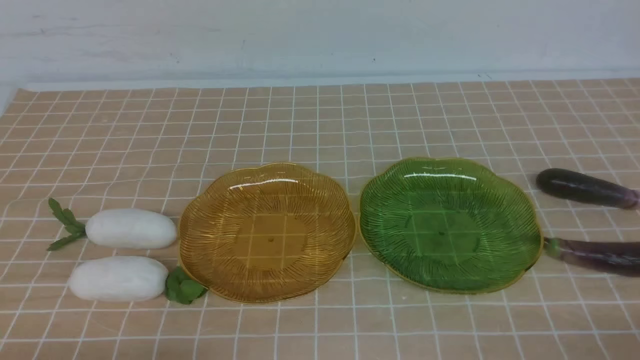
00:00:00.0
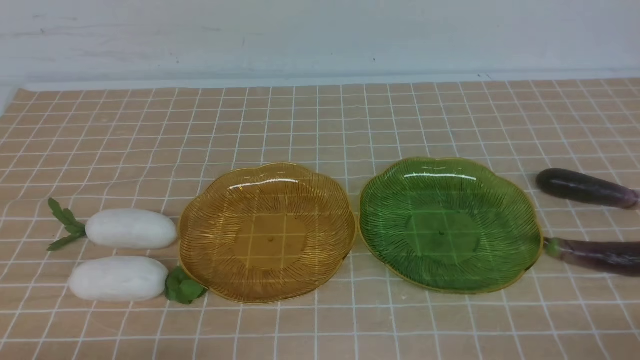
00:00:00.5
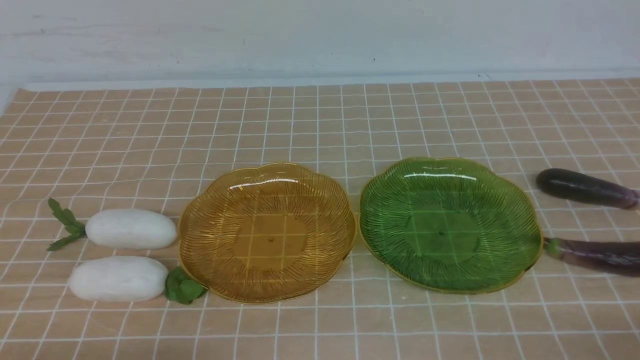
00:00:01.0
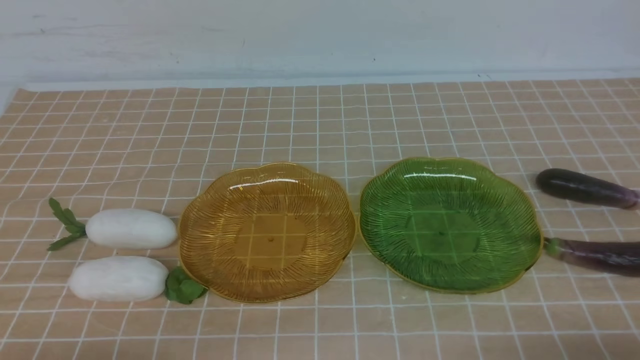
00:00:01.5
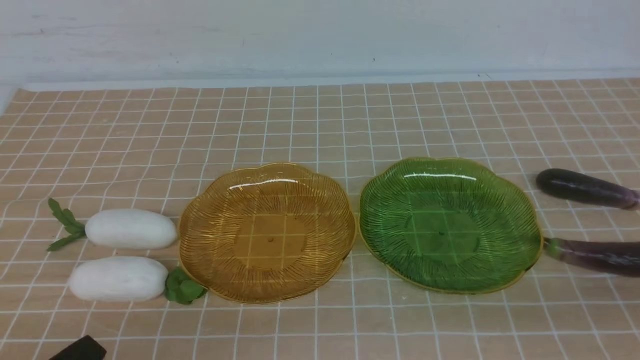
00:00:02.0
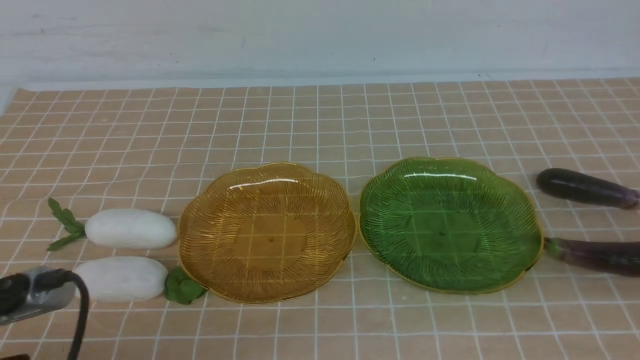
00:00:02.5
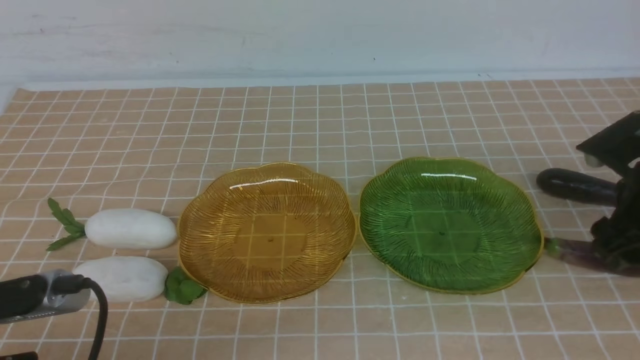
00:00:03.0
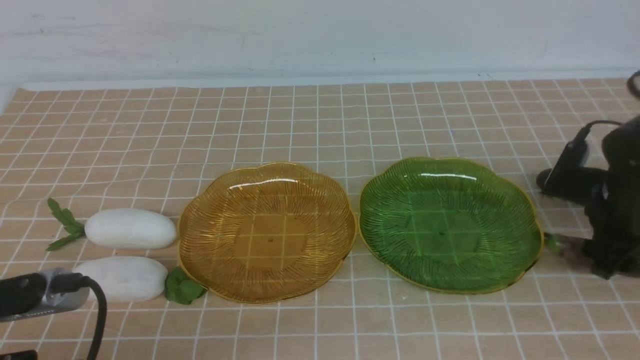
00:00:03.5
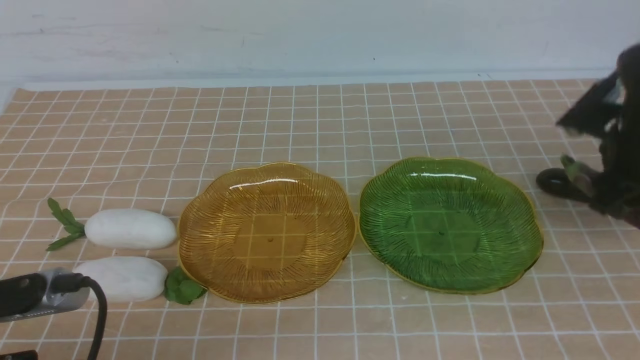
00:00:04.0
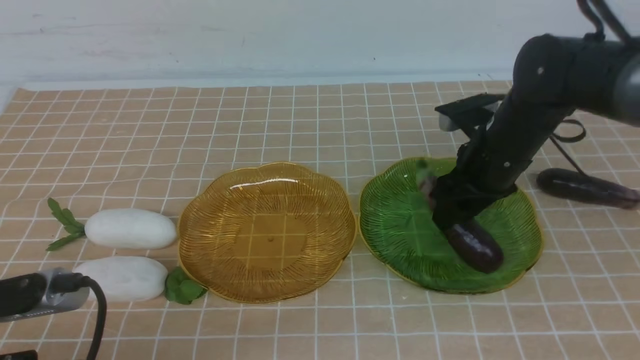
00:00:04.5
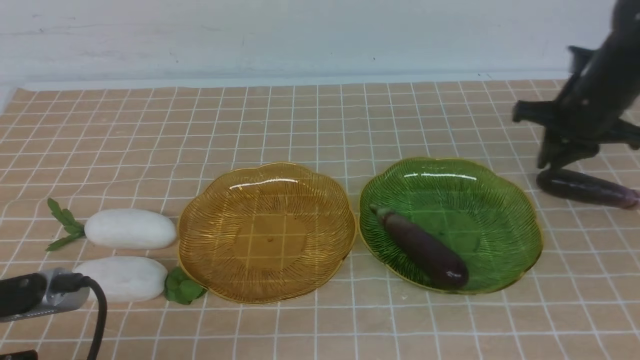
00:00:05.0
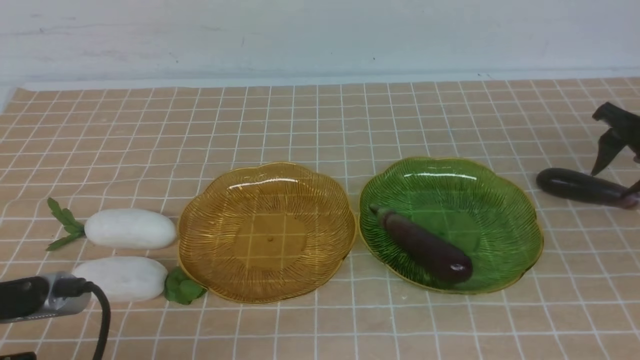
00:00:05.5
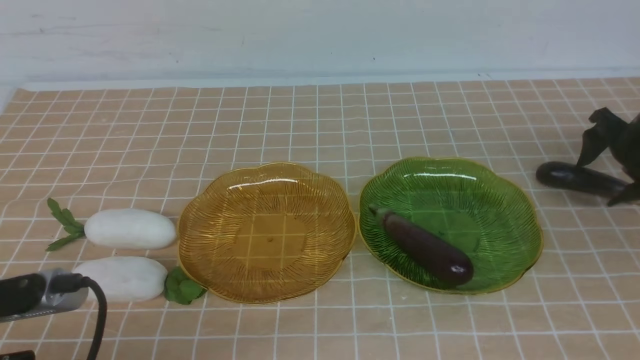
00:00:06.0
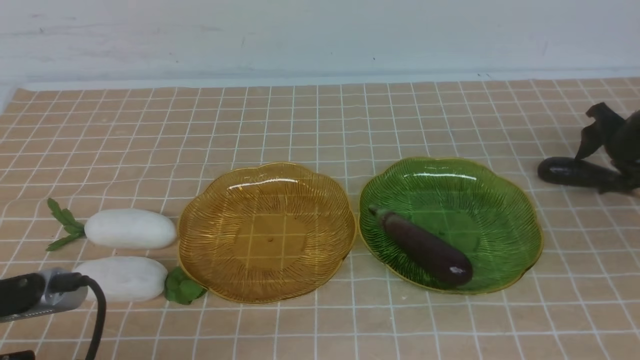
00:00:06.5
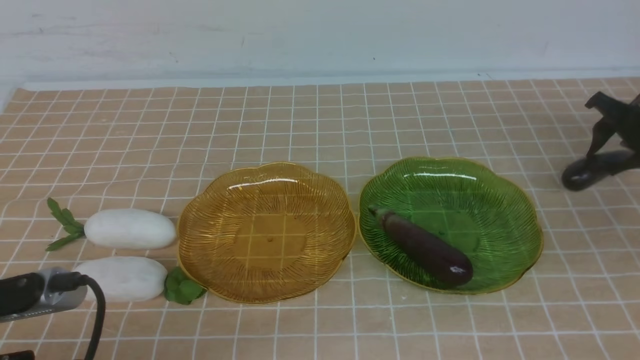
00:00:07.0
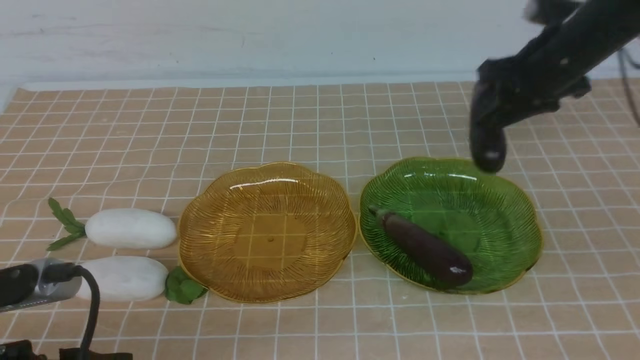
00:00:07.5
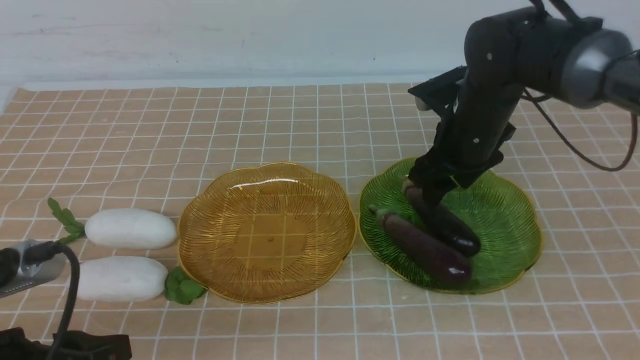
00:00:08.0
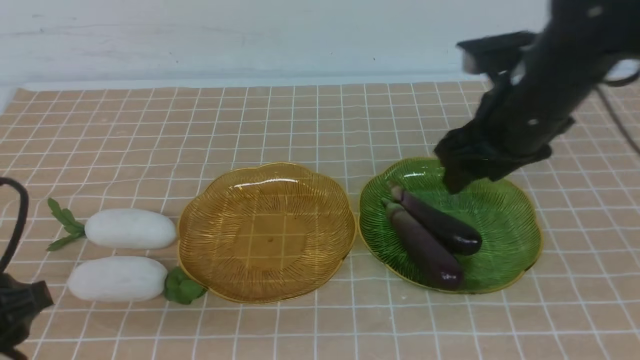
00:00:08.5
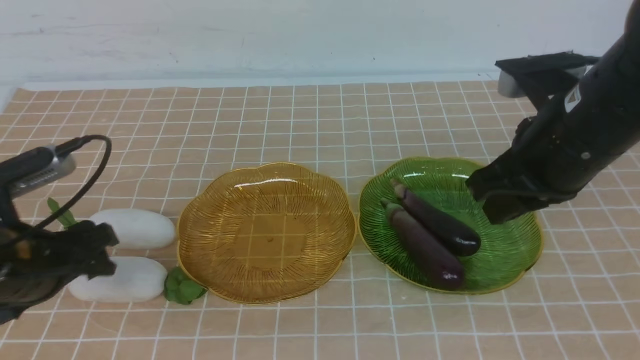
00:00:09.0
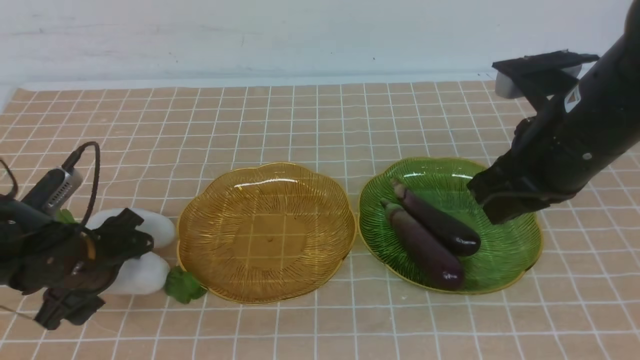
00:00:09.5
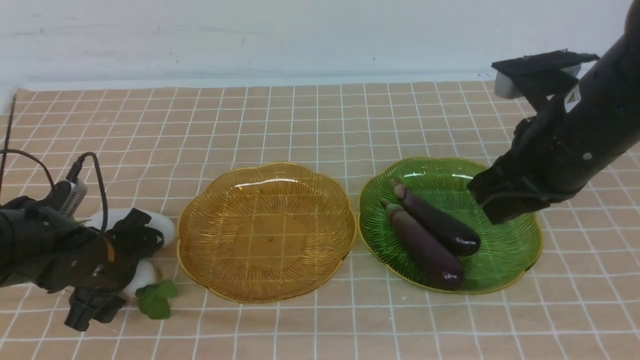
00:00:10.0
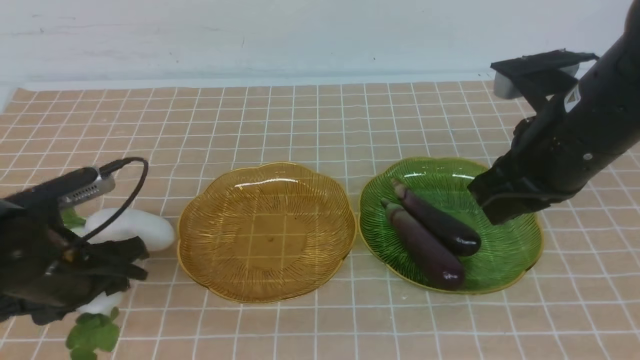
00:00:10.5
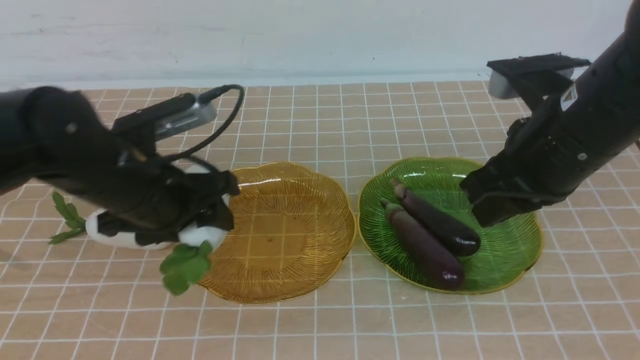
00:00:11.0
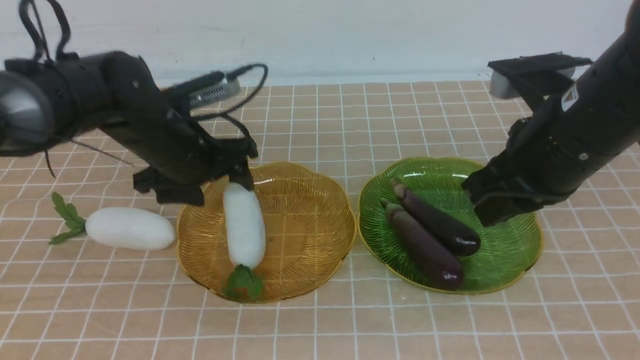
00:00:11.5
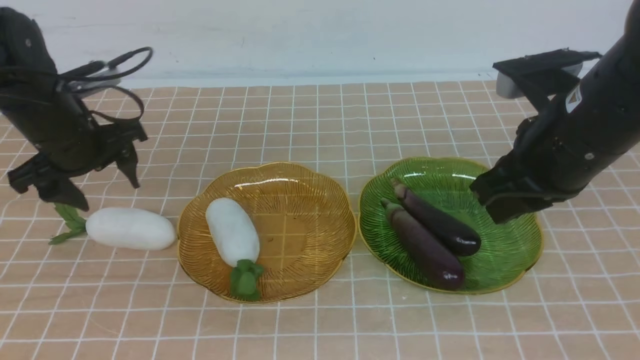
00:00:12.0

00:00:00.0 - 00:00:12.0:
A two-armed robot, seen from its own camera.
Step, 00:00:00.0 - 00:00:08.5: use the right arm to grab an eggplant and put it into the right plate.
00:00:00.0 - 00:00:02.0: The right gripper is displaced upward by approximately 10 cm.
00:00:02.0 - 00:00:04.0: The right gripper heads forward, covering approximately 30 cm, and opens its fingers. Meanwhile the left gripper moves approximately 5 cm, and opens.
00:00:04.0 - 00:00:06.0: The right gripper moves to the right, downward and forward, some 20 cm, and closes, then reopens.
00:00:06.0 - 00:00:08.0: The right gripper moves to the left and upward, roughly 25 cm, and closes, then opens again.
00:00:08.0 - 00:00:10.0: The left gripper moves forward and downward, about 20 cm; the right gripper shifts about 10 cm backward and upward, and closes its fingers.
00:00:10.0 - 00:00:12.0: The left gripper heads forward and upward, covering some 15 cm.

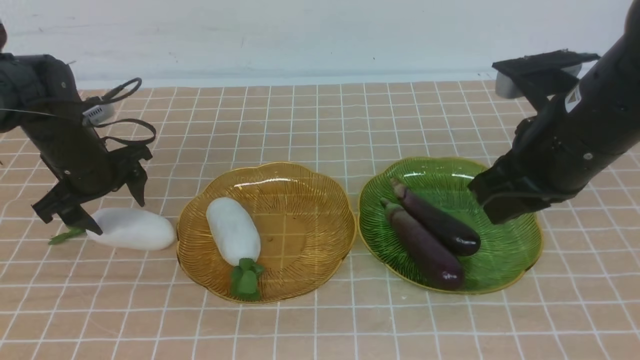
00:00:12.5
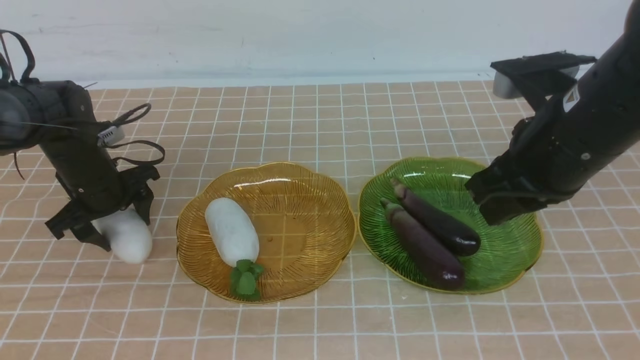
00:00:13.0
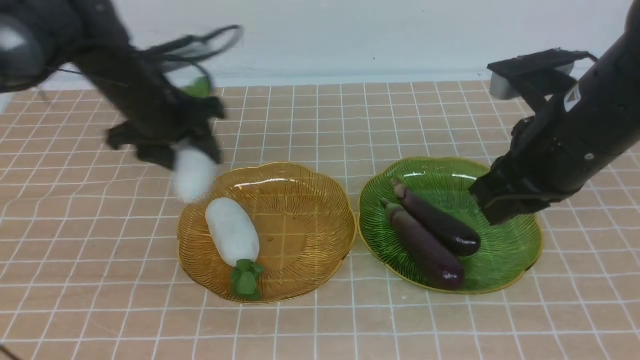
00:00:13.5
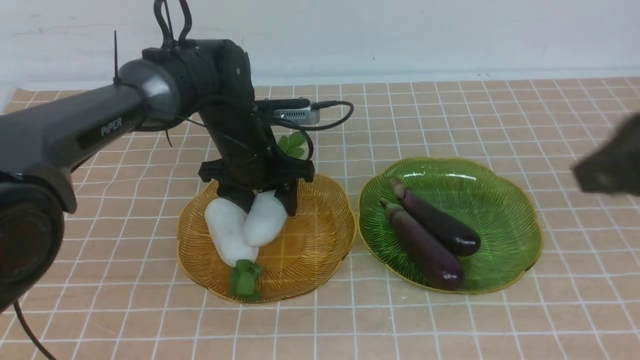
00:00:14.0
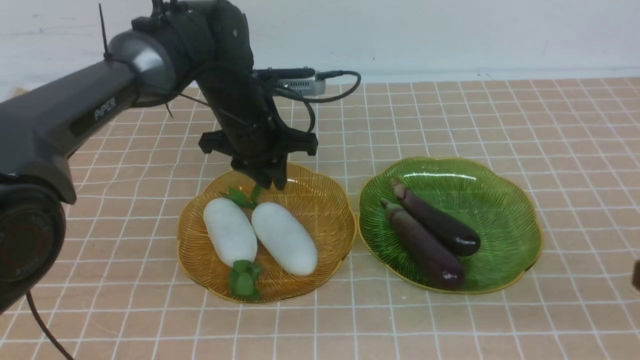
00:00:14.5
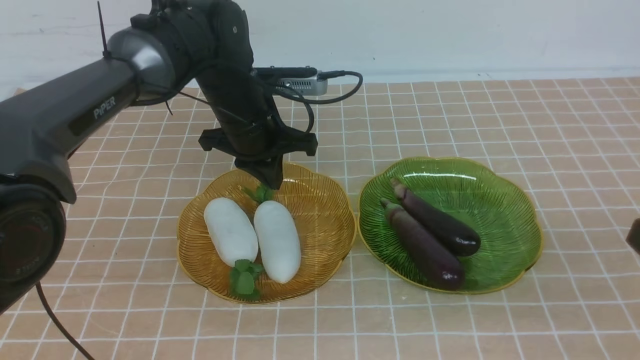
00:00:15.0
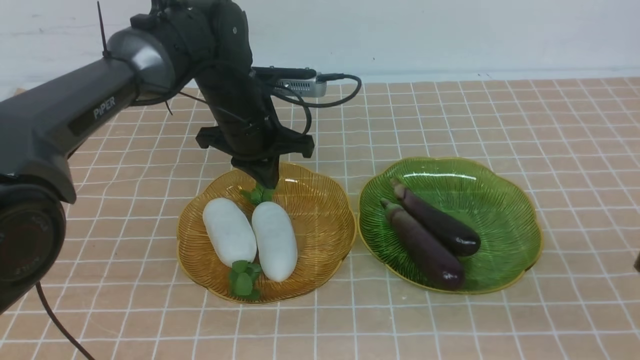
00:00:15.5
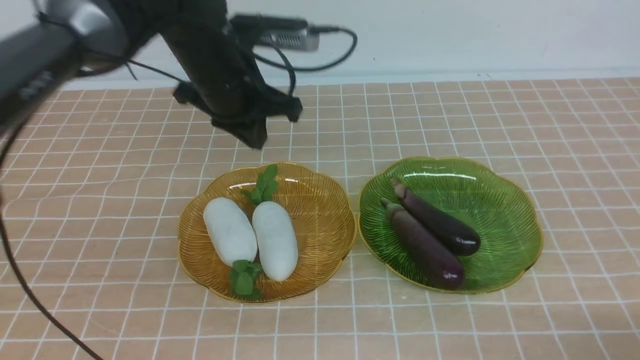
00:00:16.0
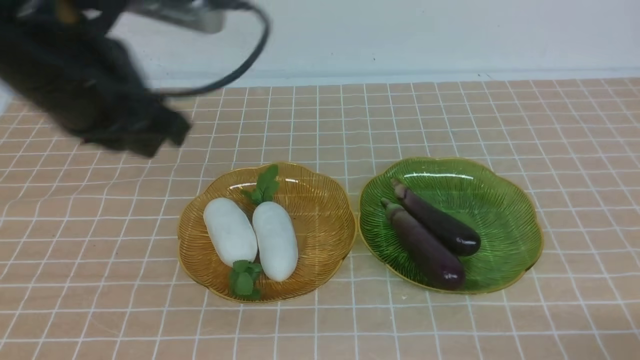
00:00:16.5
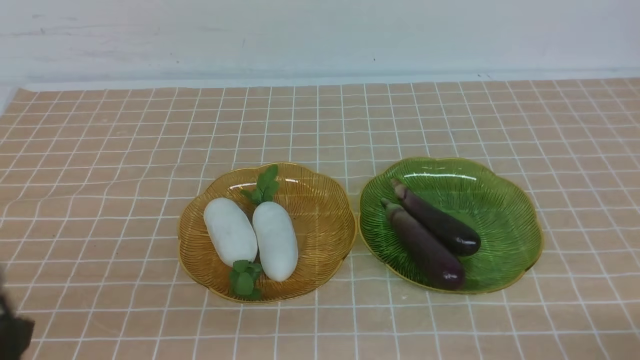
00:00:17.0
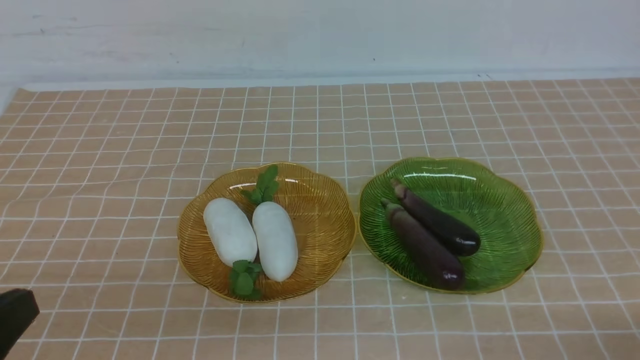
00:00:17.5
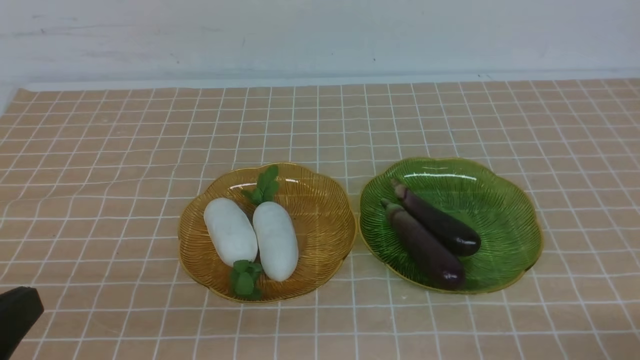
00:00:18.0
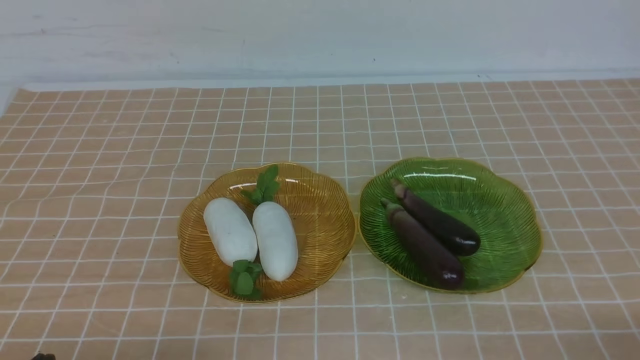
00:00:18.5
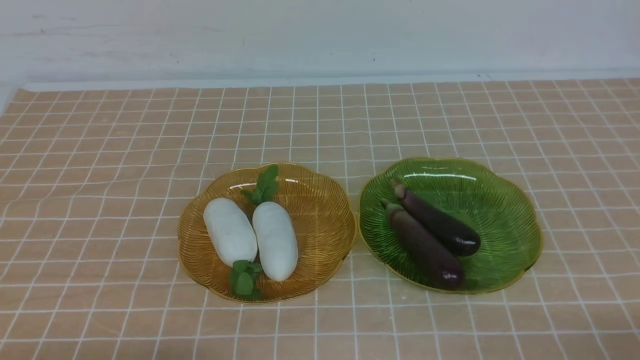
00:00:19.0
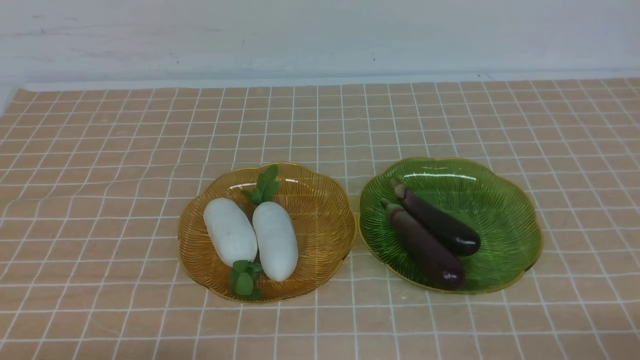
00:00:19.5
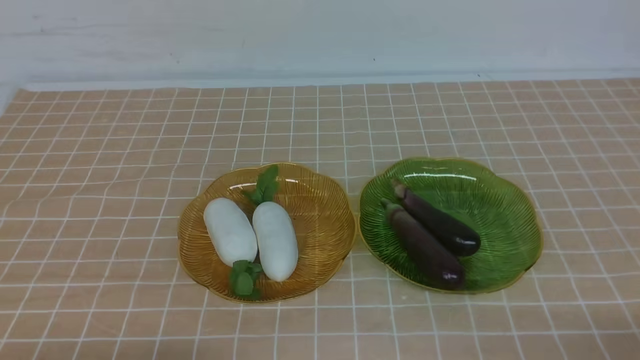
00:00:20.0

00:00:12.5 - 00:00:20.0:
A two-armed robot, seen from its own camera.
Step, 00:00:12.5 - 00:00:14.5: use the left arm to grab a radish and put it into the left plate.
00:00:12.5 - 00:00:14.5: The left gripper travels to the right by some 20 cm, and closes; the right gripper shifts roughly 20 cm backward and to the right.
00:00:14.5 - 00:00:16.5: The right gripper travels downward by approximately 15 cm. Meanwhile the left gripper travels backward, upward and to the left by roughly 30 cm.
00:00:16.5 - 00:00:18.0: The left gripper travels backward and downward by approximately 20 cm.
00:00:18.0 - 00:00:20.0: The left gripper moves downward, about 10 cm.
